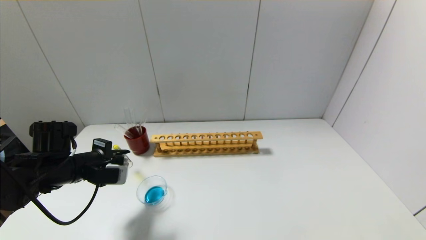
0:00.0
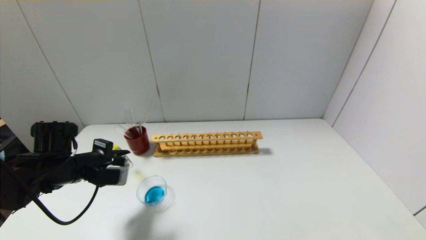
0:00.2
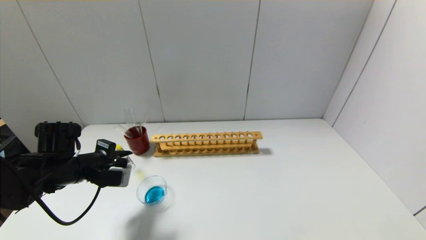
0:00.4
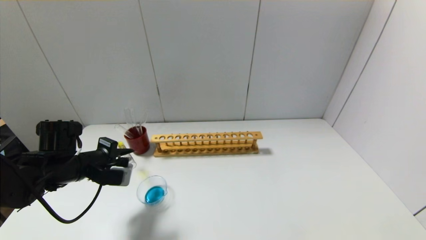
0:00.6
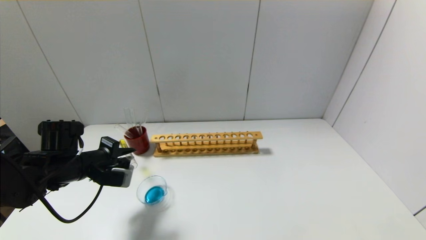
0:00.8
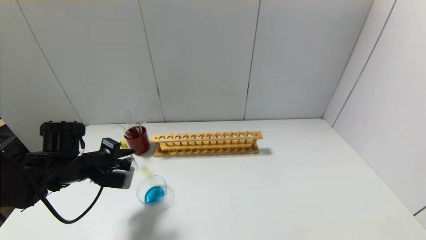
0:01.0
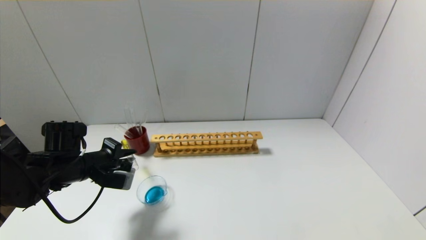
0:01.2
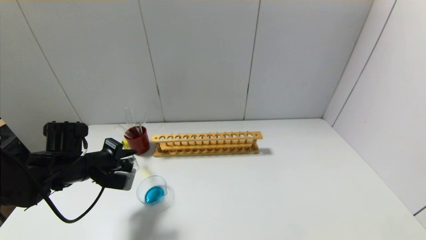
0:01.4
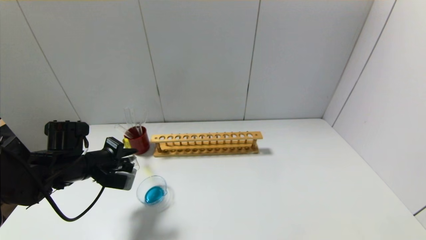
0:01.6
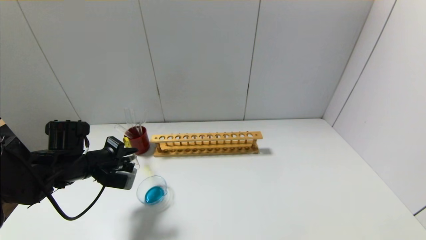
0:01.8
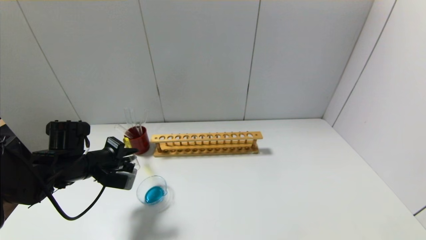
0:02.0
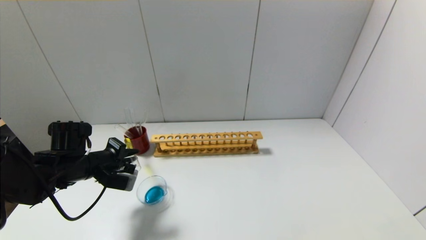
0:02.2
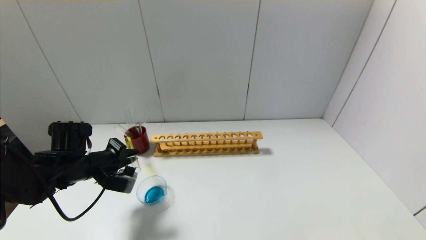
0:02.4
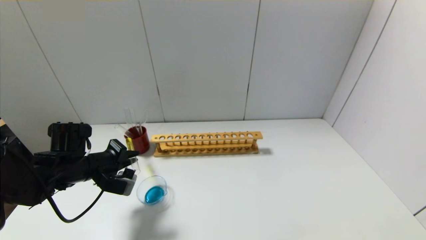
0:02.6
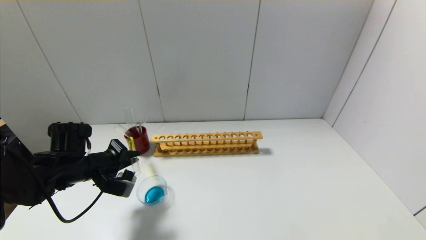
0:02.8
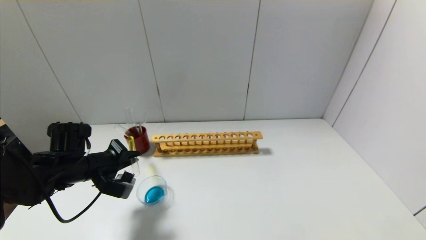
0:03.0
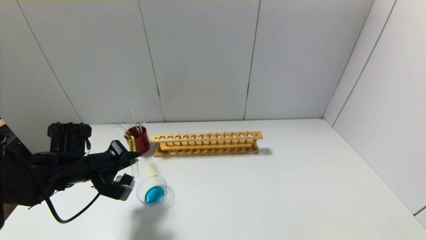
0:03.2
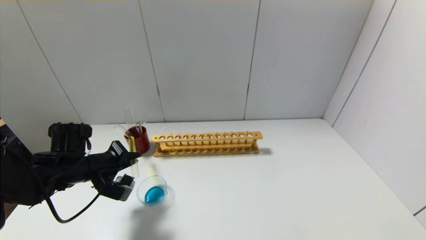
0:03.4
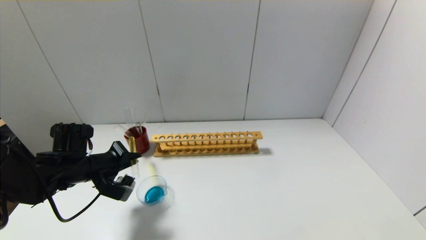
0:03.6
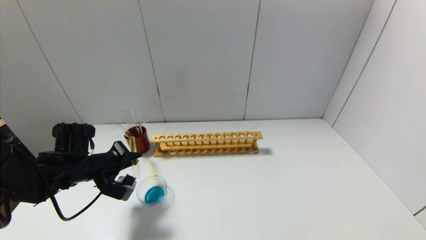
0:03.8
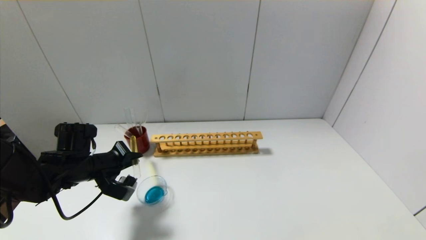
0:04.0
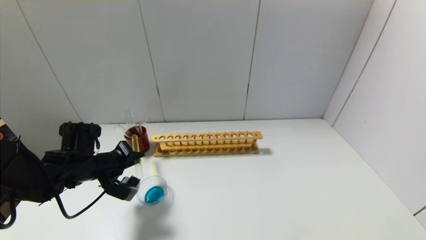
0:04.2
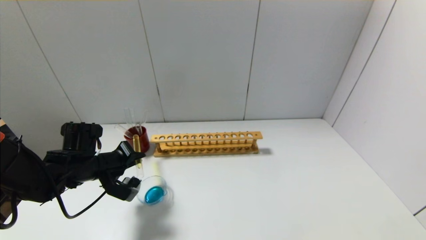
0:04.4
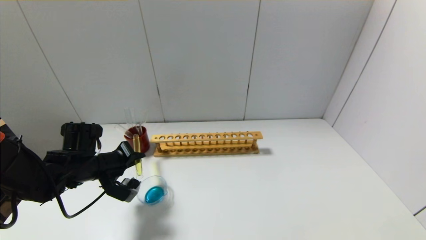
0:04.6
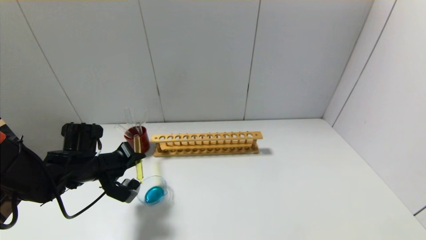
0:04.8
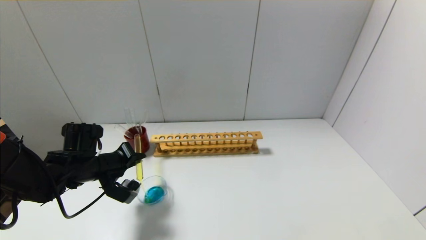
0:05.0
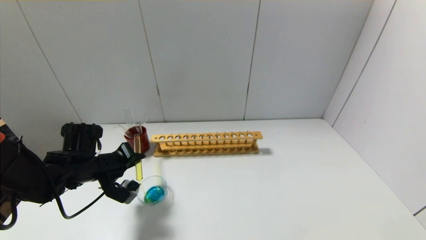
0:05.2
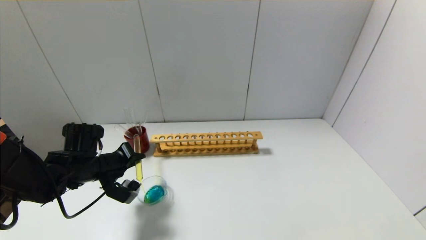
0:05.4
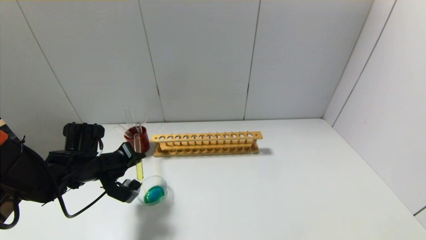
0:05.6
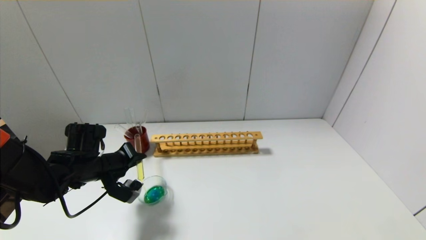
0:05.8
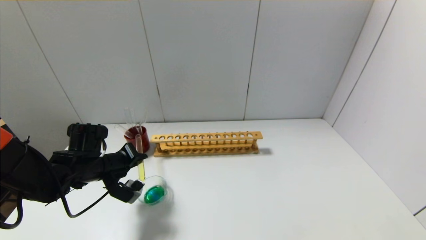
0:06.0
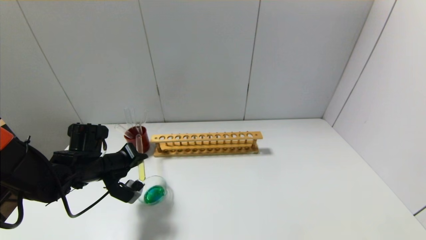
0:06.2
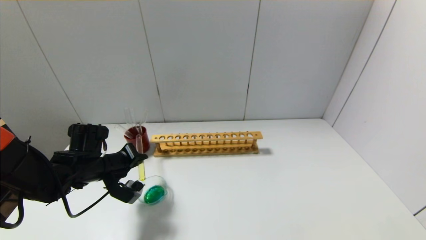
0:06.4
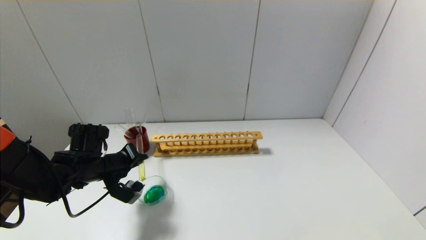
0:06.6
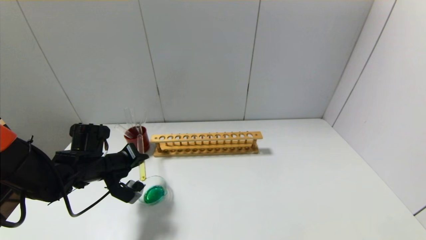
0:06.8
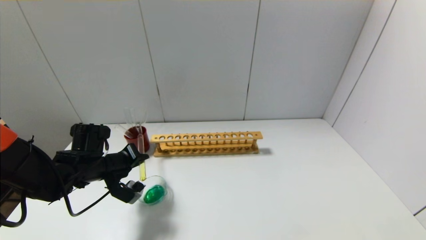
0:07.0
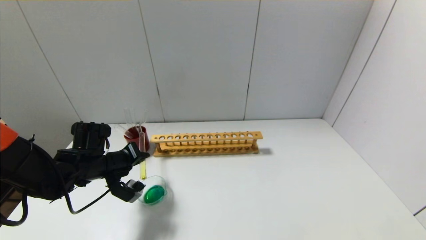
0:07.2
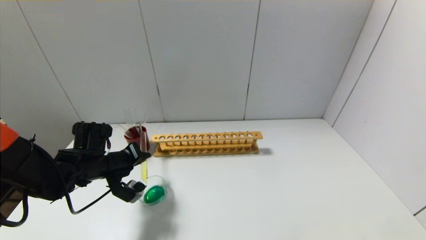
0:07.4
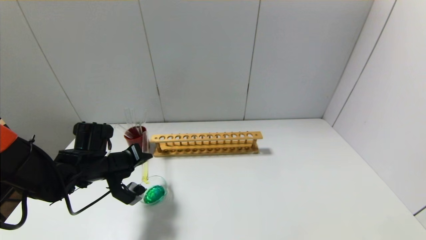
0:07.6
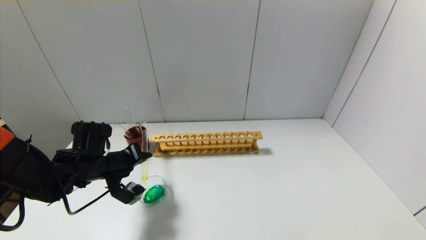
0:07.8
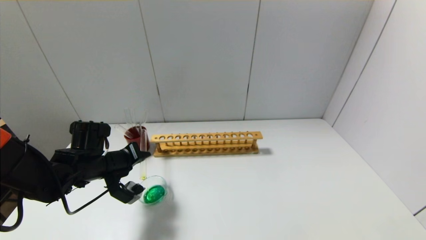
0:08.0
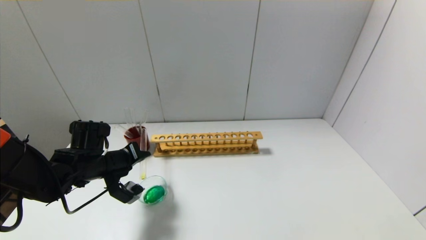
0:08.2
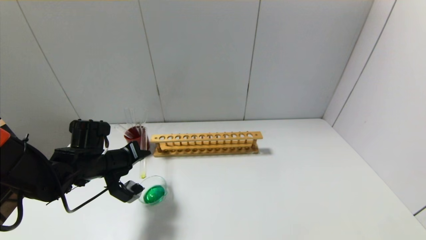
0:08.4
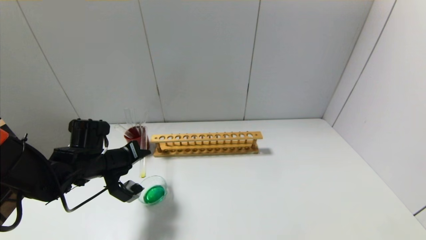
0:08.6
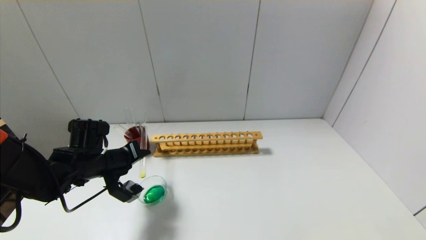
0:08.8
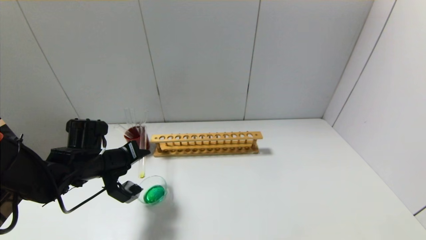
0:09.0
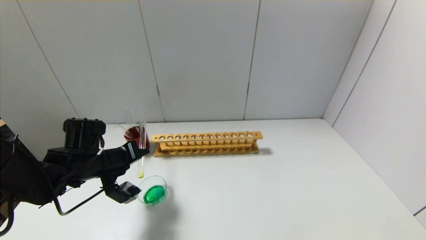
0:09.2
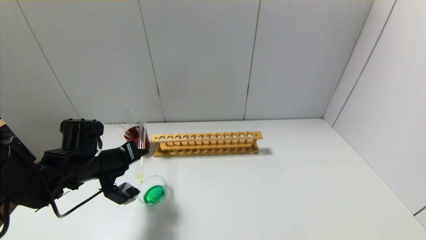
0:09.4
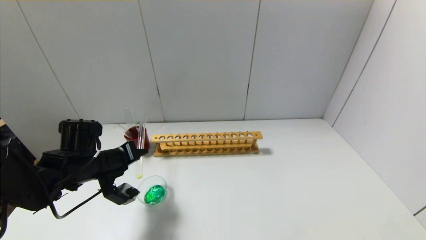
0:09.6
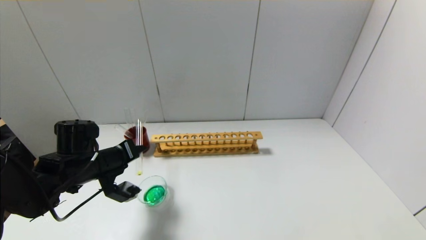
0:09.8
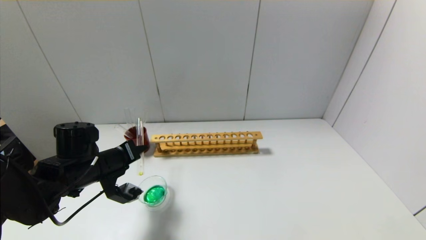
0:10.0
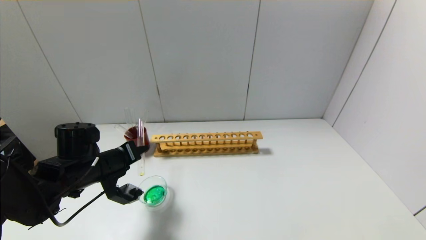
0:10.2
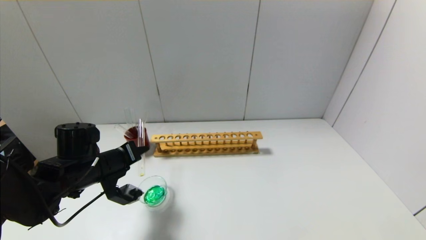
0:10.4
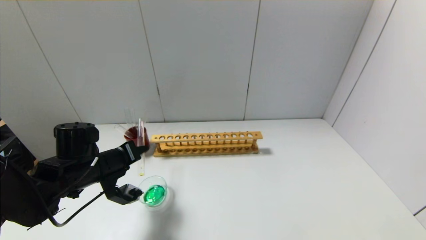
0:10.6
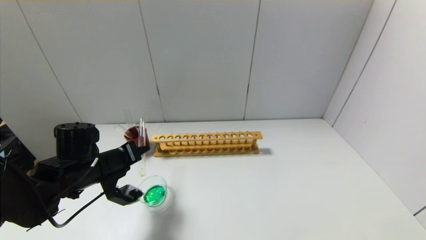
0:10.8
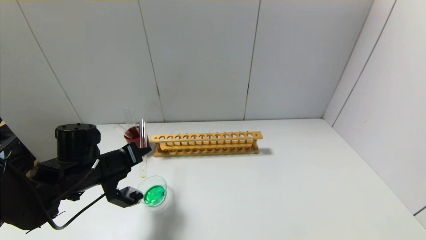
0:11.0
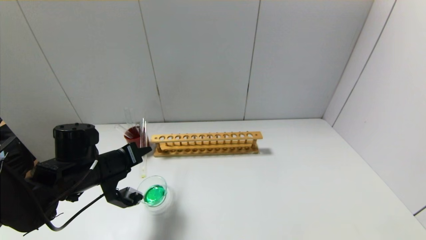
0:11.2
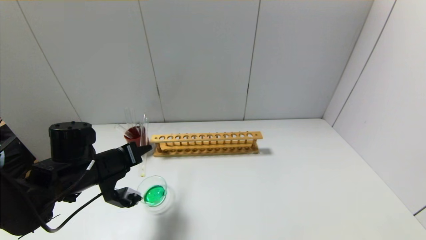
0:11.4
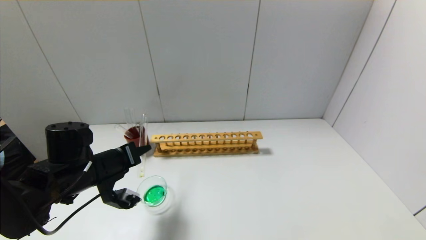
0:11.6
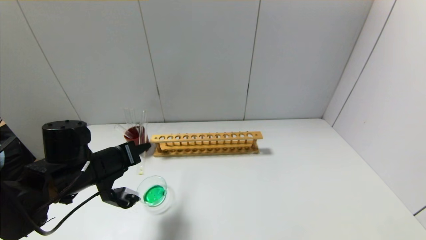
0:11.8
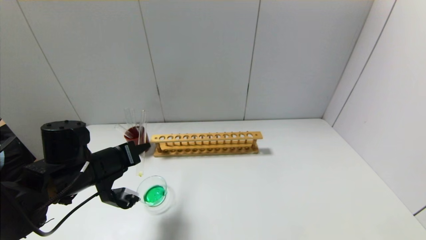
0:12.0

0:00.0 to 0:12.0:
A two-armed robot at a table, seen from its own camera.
0:00.0 to 0:01.6: There are only small adjustments of the grippers.
0:01.6 to 0:04.4: The grippers stay close to where they were, moving slightly.
0:04.4 to 0:06.0: Both grippers stay about where they are.
0:06.0 to 0:09.0: There are only small adjustments of the grippers.
0:09.0 to 0:12.0: The grippers move only a little.

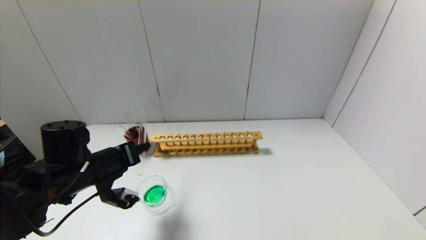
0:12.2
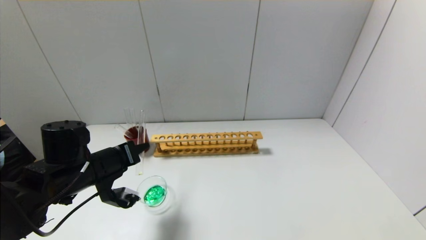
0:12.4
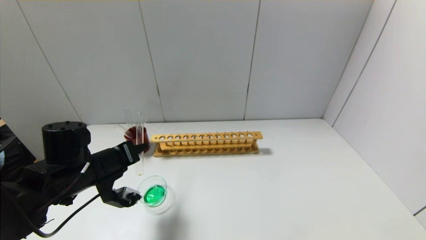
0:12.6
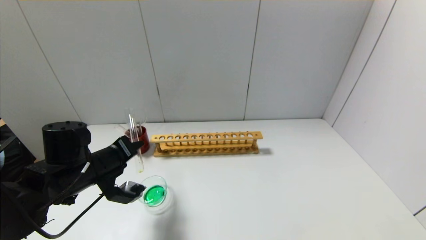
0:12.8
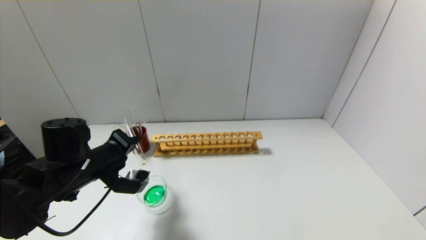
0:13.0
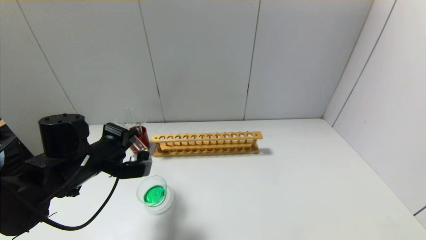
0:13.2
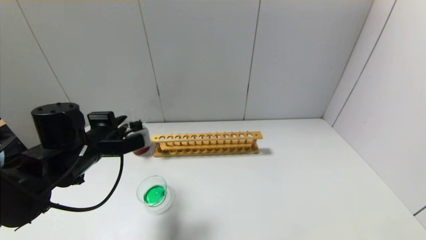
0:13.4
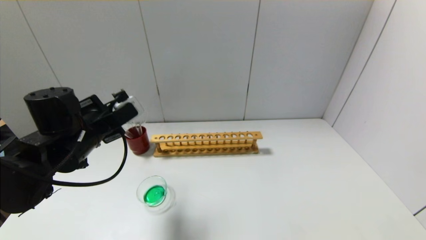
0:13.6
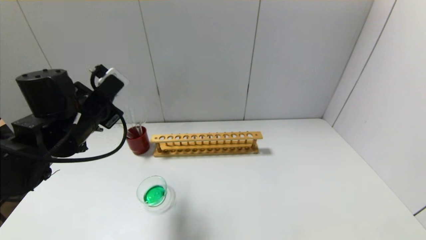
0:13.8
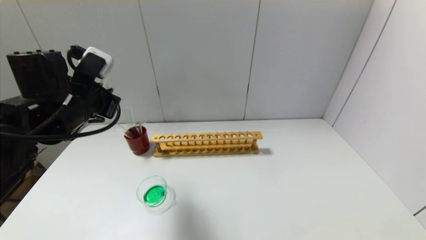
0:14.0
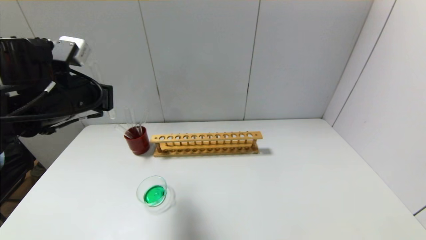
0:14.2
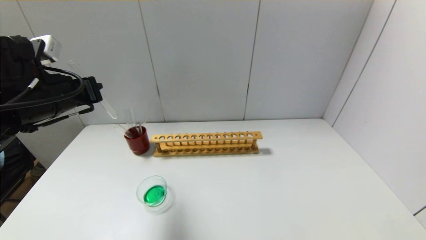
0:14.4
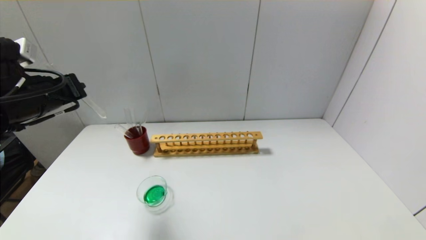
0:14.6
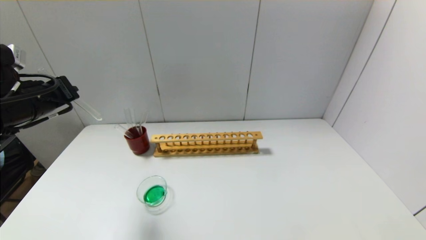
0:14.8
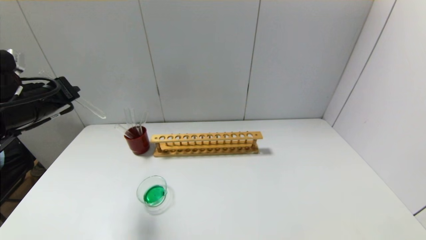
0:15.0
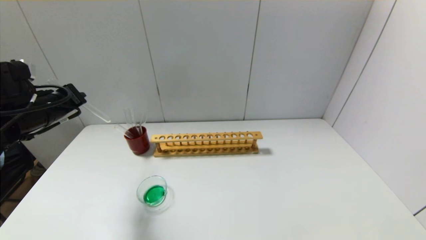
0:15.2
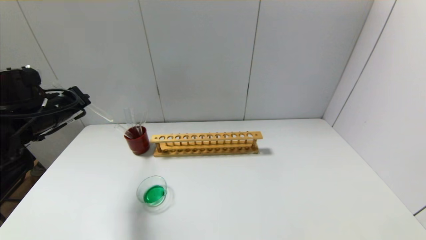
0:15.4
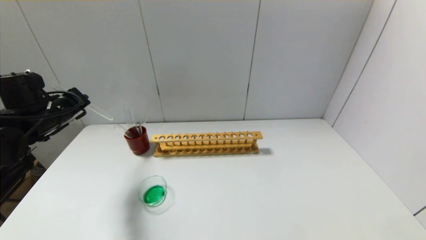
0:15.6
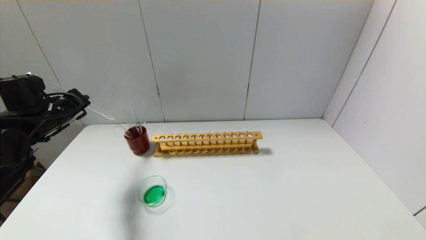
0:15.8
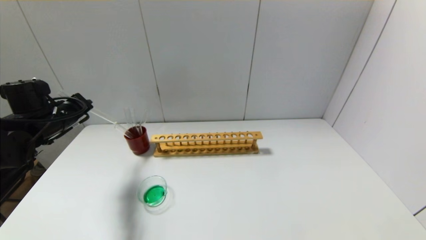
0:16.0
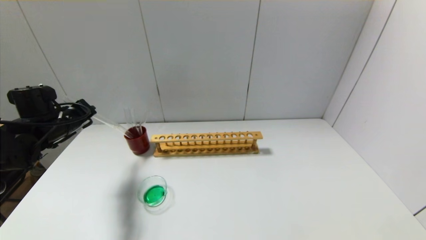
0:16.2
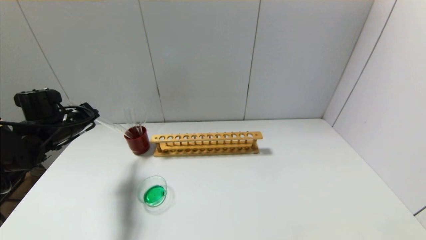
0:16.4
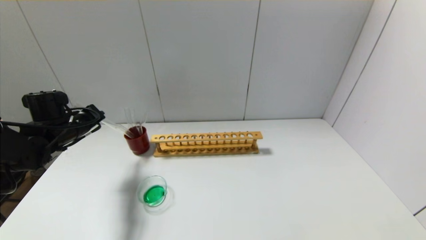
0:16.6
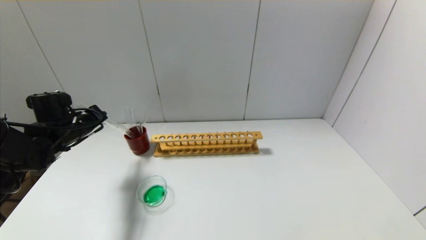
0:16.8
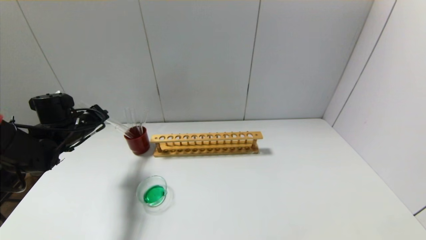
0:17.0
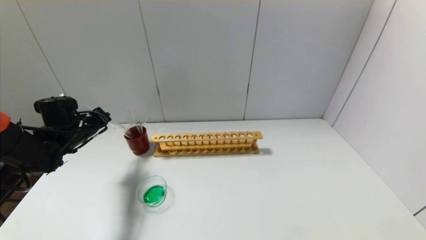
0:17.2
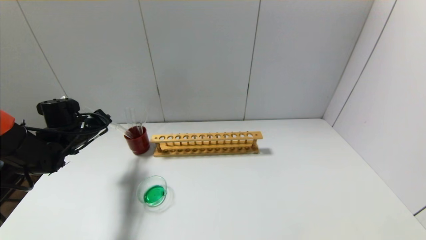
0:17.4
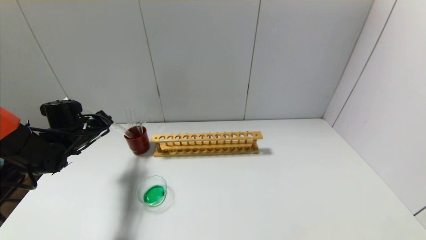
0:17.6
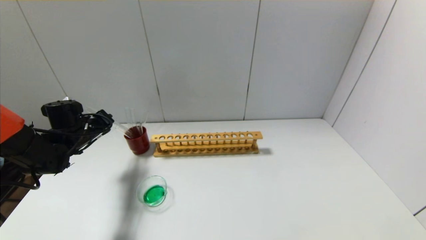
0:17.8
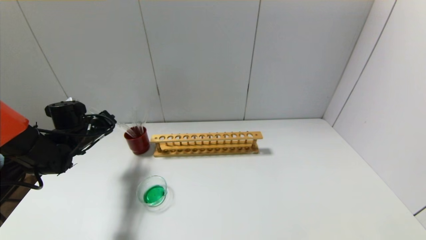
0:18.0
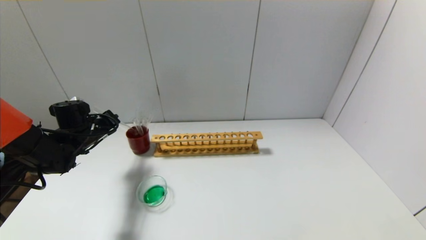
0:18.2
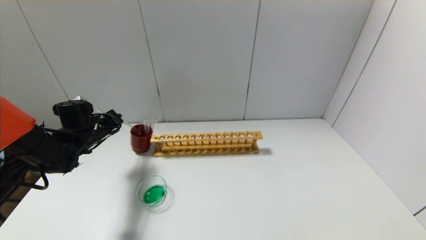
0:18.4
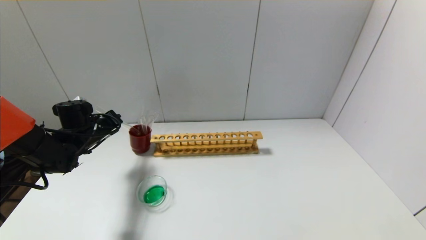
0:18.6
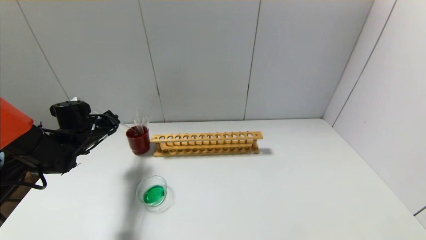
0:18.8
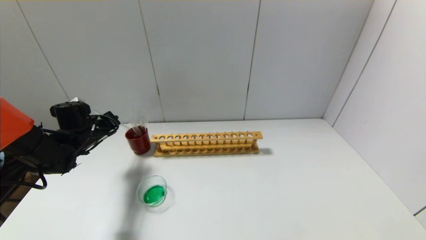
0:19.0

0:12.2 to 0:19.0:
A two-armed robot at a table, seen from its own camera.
0:12.2 to 0:13.6: The left gripper shifts approximately 5 cm upward.
0:13.6 to 0:15.0: The left gripper goes roughly 10 cm to the left.
0:15.0 to 0:16.2: The left gripper shifts about 10 cm downward and forward.
0:16.2 to 0:17.6: The left gripper moves roughly 5 cm.
0:17.6 to 0:19.0: There are only small adjustments of the grippers.
